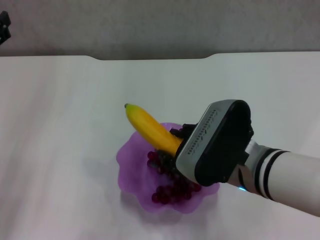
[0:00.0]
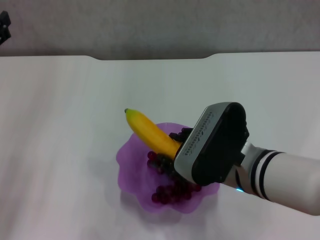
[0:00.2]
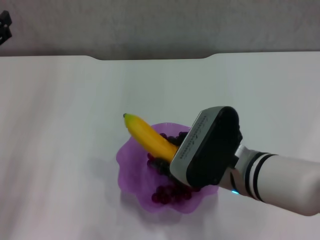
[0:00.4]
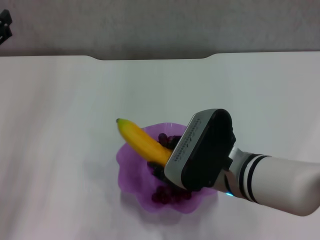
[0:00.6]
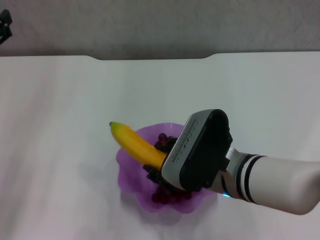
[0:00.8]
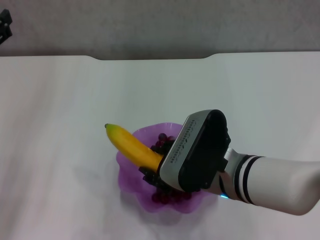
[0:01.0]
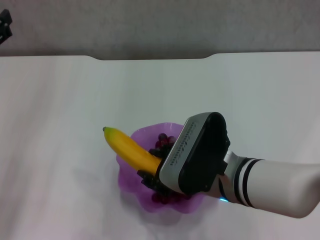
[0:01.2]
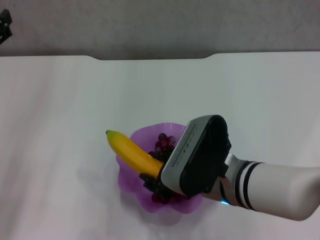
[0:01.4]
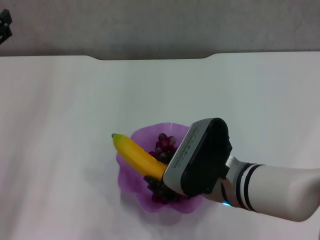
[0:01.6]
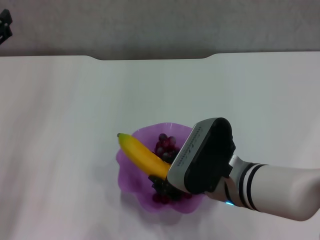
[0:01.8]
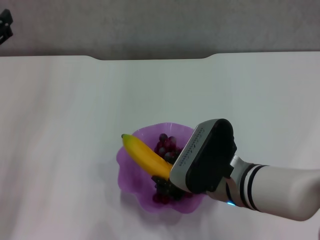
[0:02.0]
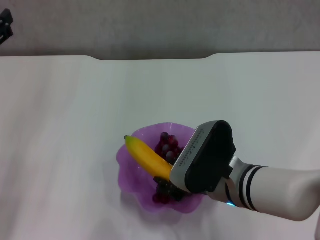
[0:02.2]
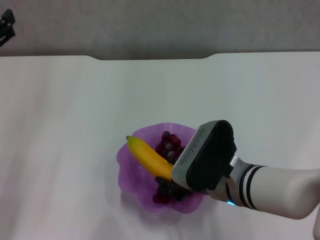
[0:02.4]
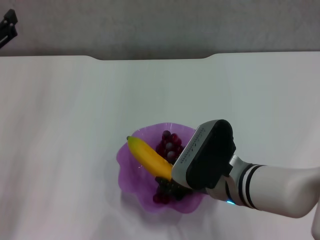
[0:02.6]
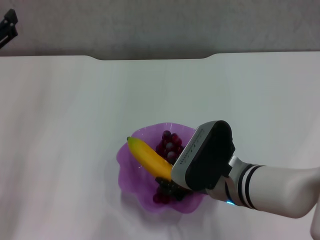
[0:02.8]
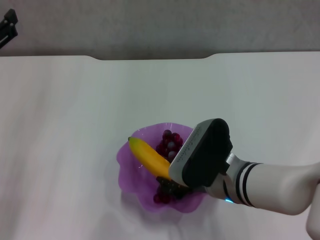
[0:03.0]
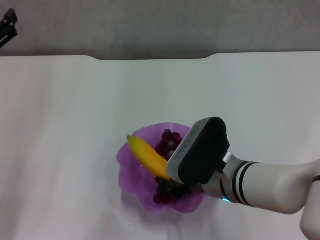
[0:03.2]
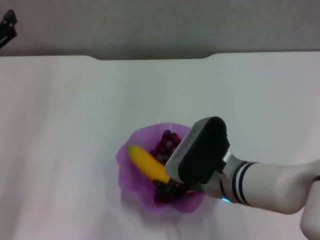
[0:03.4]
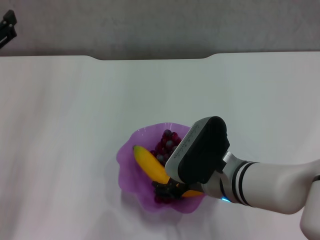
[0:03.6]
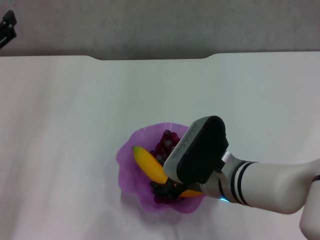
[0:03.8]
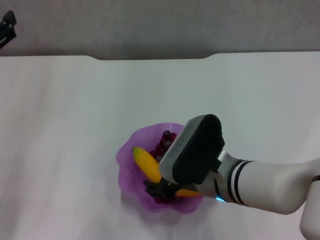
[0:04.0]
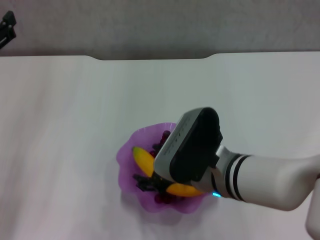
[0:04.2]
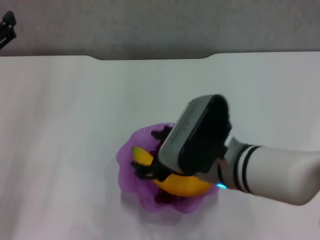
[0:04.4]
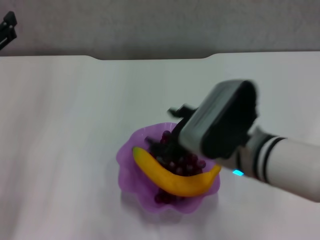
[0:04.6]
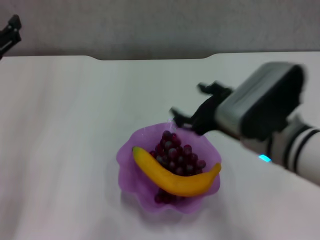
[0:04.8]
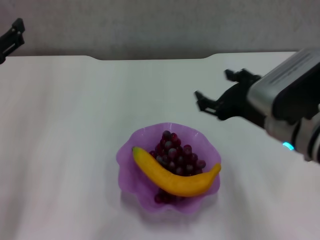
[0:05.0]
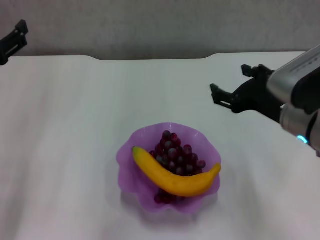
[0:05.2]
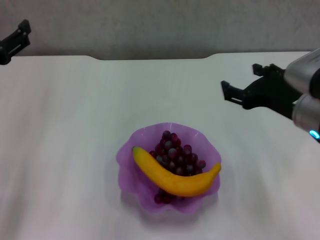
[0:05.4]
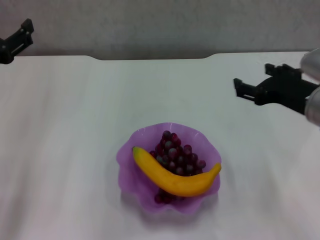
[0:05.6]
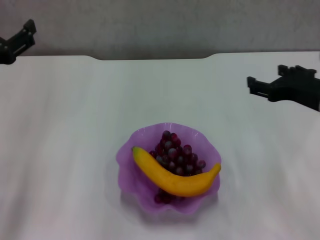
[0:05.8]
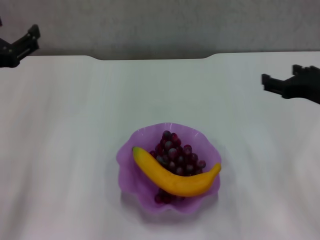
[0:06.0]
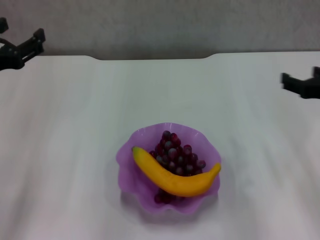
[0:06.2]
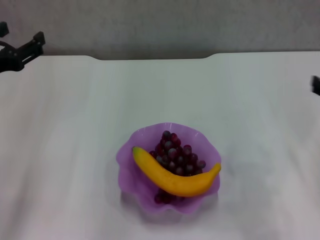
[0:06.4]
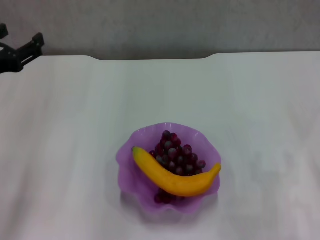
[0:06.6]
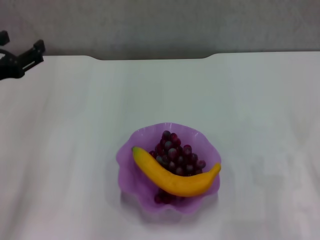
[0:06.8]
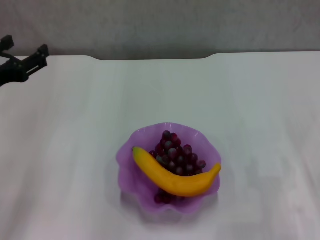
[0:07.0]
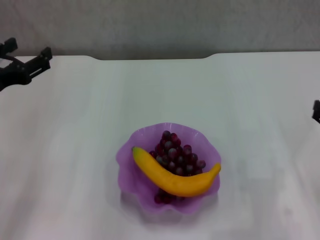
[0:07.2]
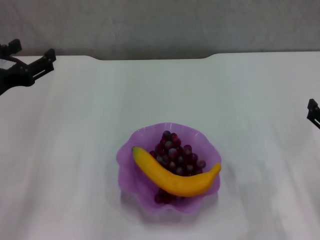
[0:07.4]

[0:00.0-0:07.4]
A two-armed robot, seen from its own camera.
Step, 0:00.0 to 0:04.2: Place the banana in the purple plate with right gripper.
0:00.0 to 0:03.0: The grippers move only a little.
0:03.0 to 0:04.4: The right gripper moves roughly 5 cm, and opens.
0:04.4 to 0:06.0: The right gripper shifts approximately 20 cm to the right.
0:06.0 to 0:07.4: The right gripper shifts some 10 cm downward and backward.
